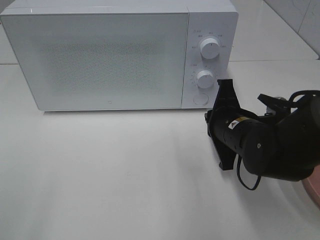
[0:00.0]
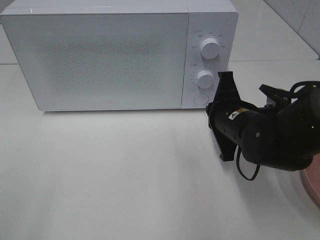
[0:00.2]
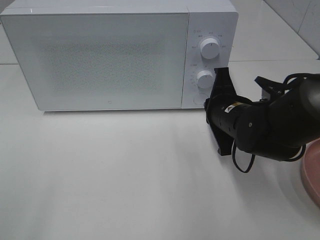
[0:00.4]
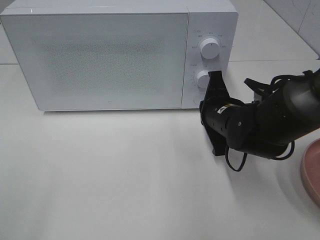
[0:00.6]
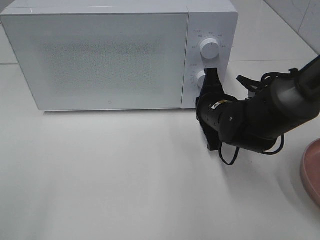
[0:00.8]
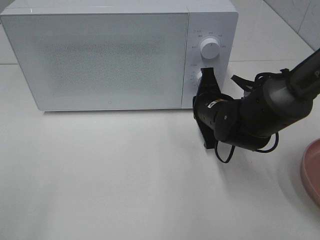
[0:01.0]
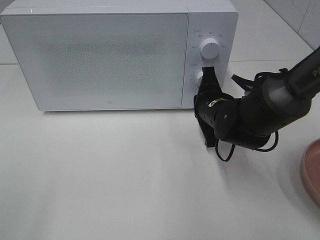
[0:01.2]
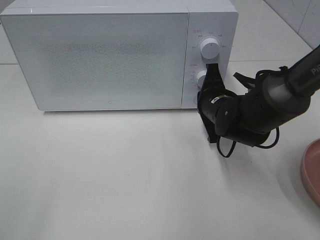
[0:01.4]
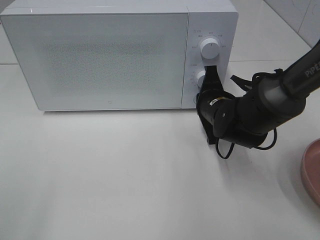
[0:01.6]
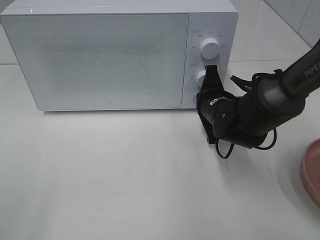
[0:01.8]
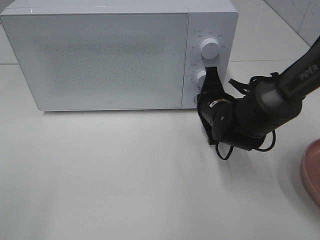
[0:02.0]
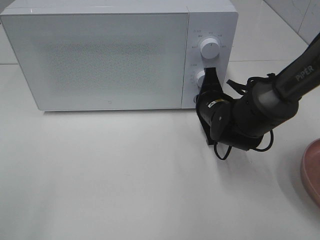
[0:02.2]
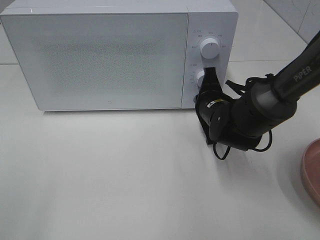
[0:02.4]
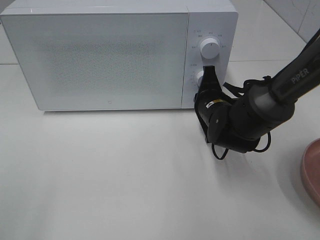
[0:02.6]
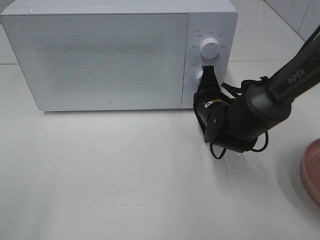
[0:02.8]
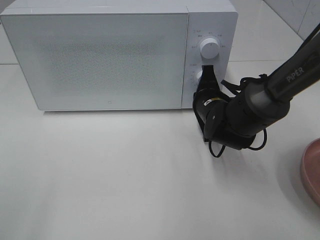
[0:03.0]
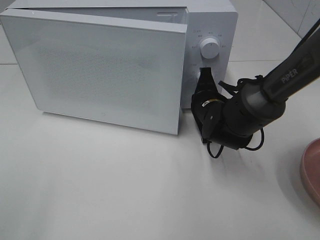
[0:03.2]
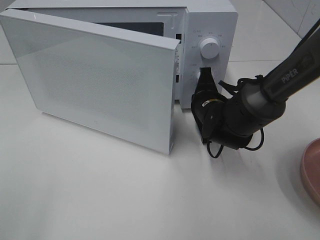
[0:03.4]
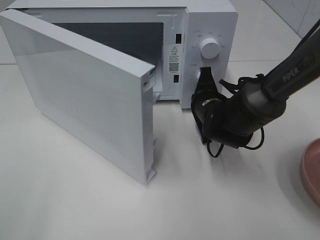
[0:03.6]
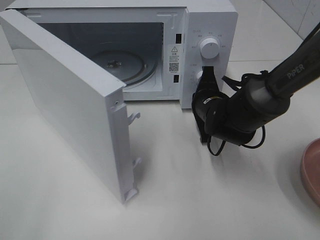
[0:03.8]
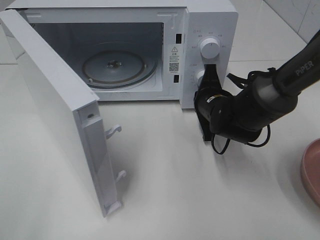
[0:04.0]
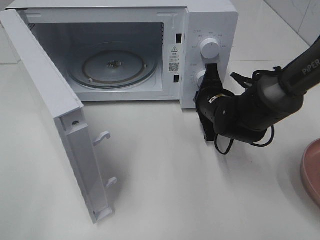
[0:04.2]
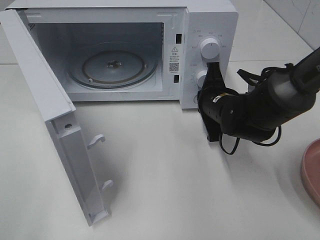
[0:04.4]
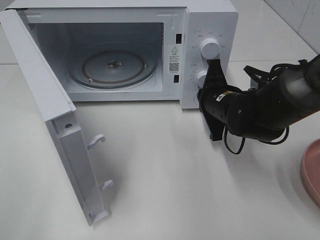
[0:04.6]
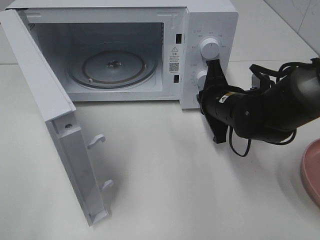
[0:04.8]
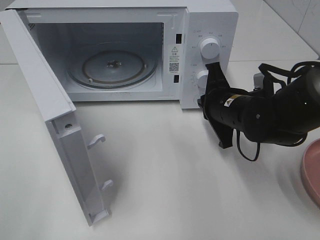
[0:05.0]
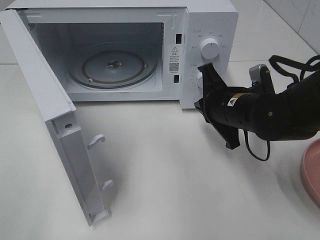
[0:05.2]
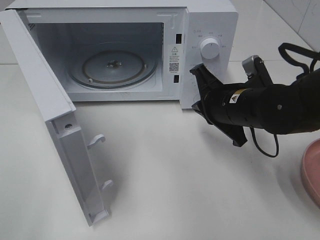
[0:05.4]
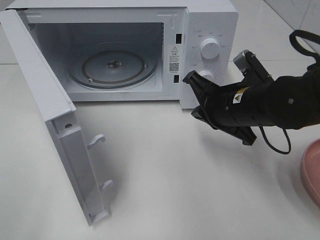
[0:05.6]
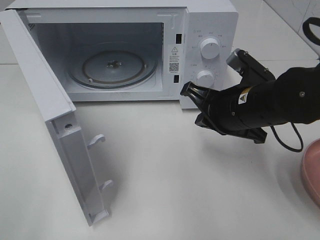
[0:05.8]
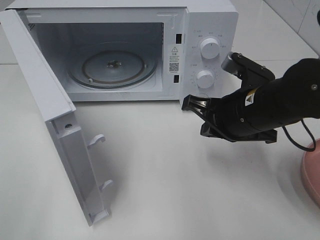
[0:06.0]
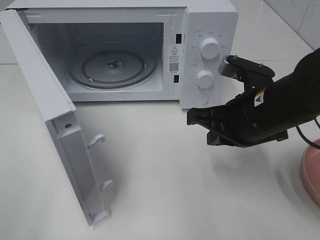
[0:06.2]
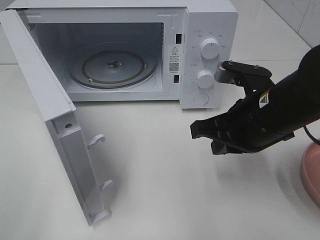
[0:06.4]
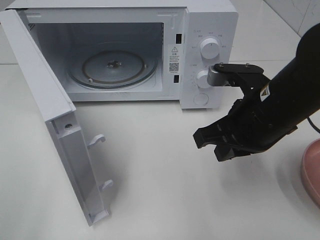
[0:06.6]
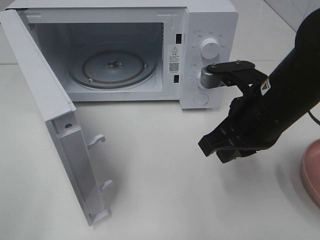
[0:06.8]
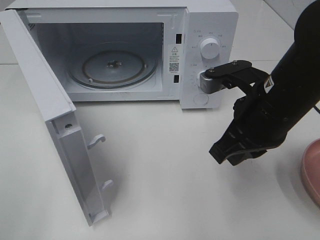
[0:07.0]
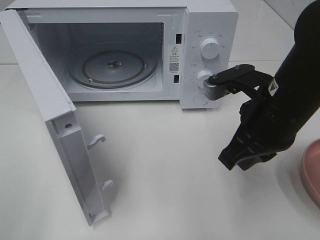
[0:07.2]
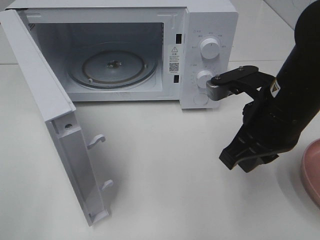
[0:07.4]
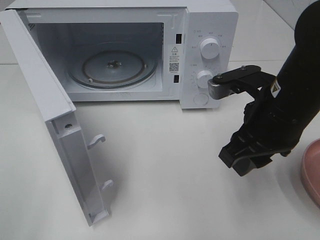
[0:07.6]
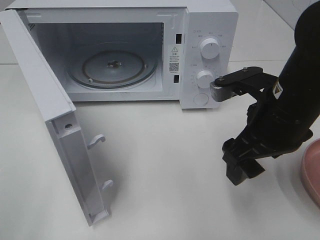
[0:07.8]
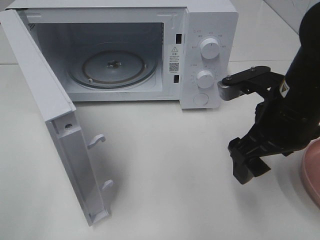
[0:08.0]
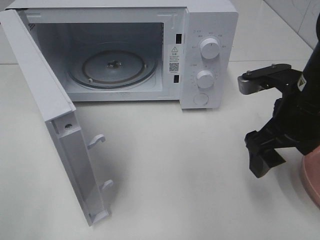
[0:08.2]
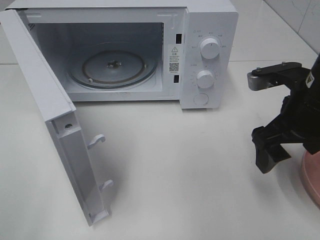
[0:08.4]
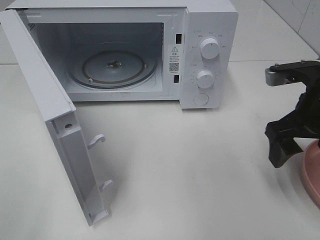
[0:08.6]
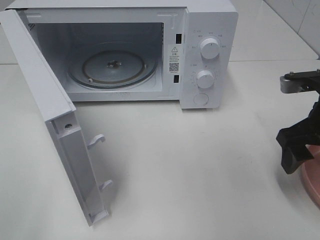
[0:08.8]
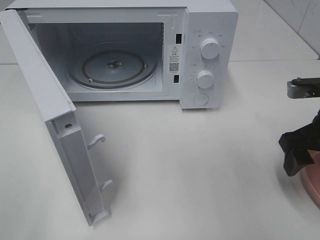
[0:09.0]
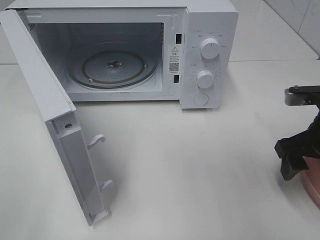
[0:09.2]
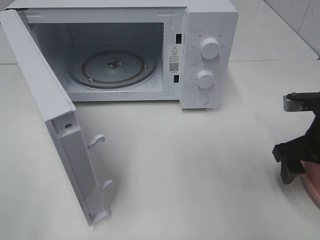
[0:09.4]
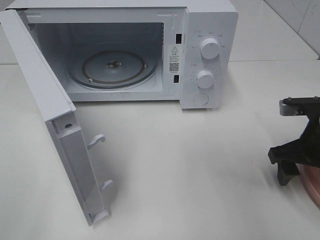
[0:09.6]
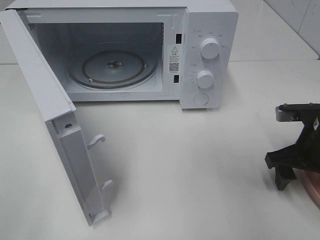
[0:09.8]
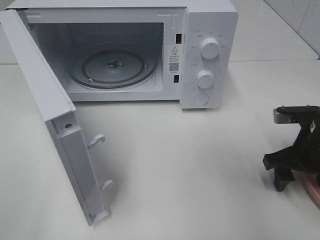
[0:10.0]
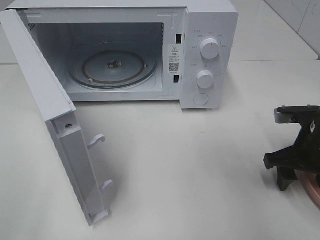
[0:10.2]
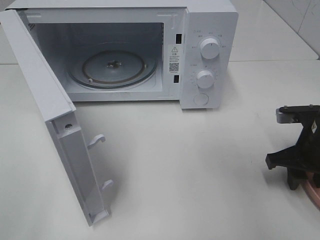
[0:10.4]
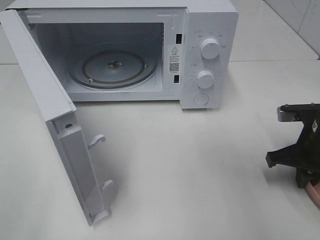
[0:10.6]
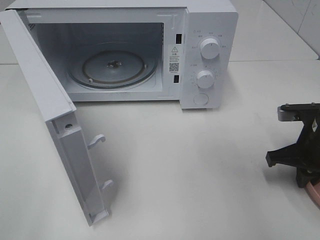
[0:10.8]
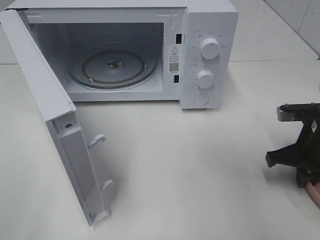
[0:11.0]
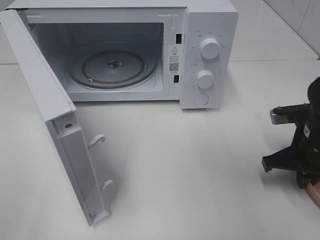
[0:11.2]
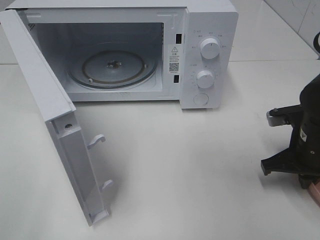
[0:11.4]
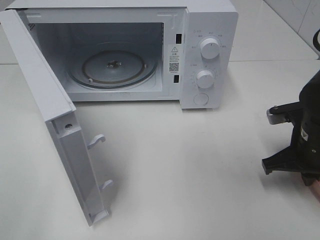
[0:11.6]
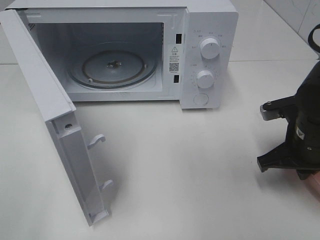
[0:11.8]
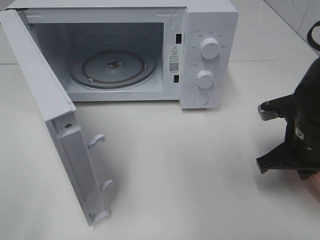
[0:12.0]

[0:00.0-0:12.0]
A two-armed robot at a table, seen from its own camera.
Task of the whole recording: Heat the burger.
Step, 0:00.0 to 0:04.6: Right hand: press the switch.
Step, 0:04.8 to 0:11.6: Right hand: grab the plate with the hamburger.
0:00.0 to 0:01.6: The right gripper goes some 10 cm forward.
0:01.6 to 0:03.0: The grippers stay close to where they were, moving slightly.
0:04.4 to 0:06.0: The right gripper goes roughly 10 cm backward and upward.
0:06.0 to 0:07.6: The right gripper opens up.
0:07.6 to 0:09.0: The right gripper travels to the right by roughly 10 cm, and opens its fingers.
0:09.0 to 0:10.4: The right gripper heads downward, covering about 5 cm, and closes its fingers.
0:10.4 to 0:12.0: The right gripper shifts by about 5 cm, and closes up.

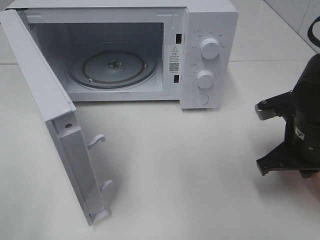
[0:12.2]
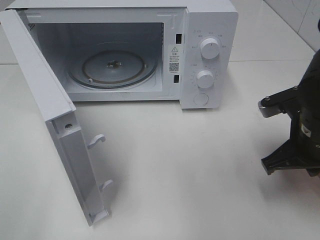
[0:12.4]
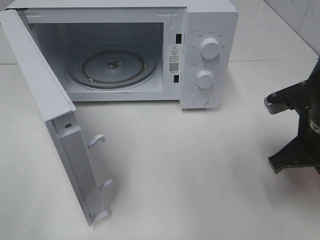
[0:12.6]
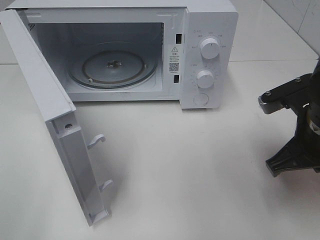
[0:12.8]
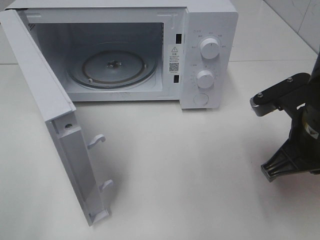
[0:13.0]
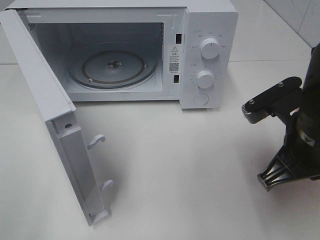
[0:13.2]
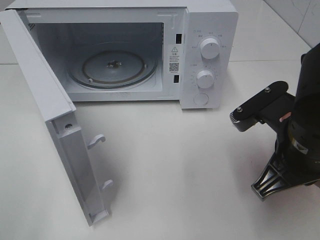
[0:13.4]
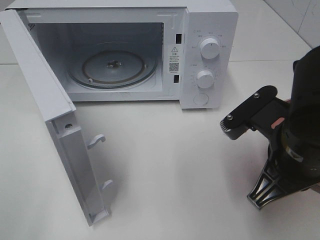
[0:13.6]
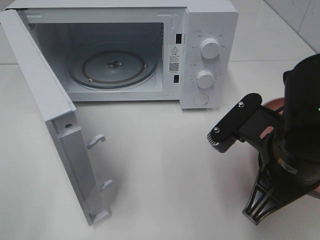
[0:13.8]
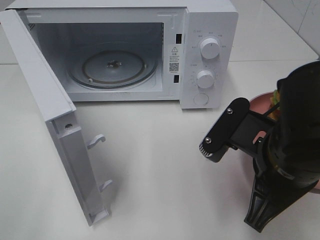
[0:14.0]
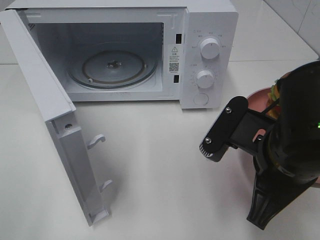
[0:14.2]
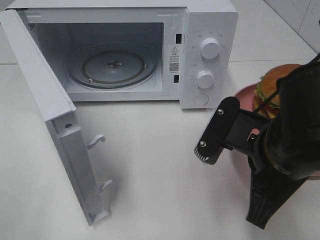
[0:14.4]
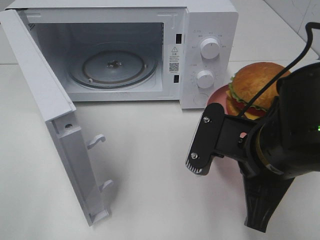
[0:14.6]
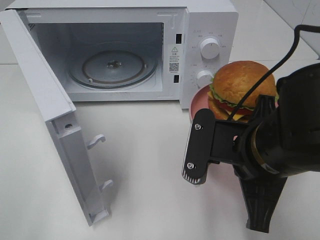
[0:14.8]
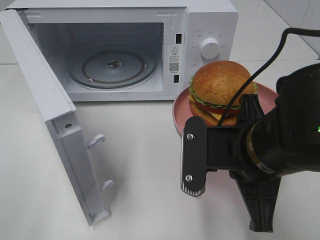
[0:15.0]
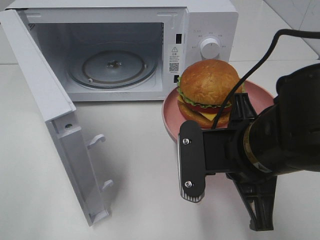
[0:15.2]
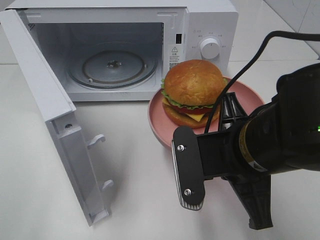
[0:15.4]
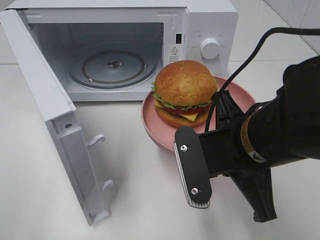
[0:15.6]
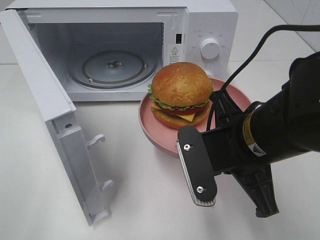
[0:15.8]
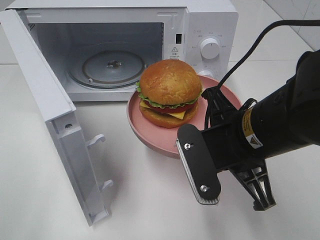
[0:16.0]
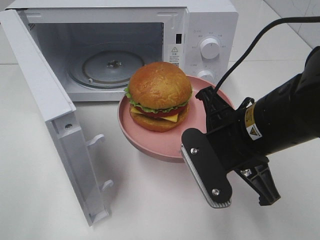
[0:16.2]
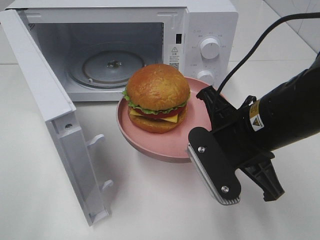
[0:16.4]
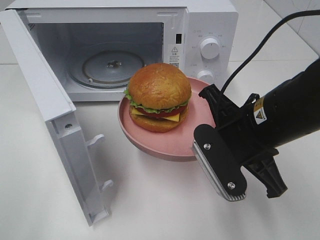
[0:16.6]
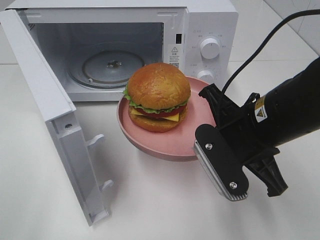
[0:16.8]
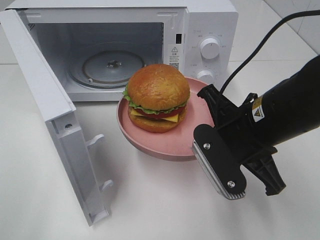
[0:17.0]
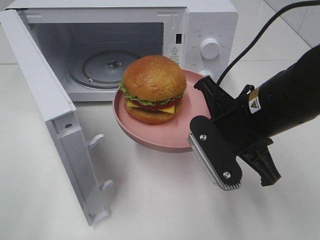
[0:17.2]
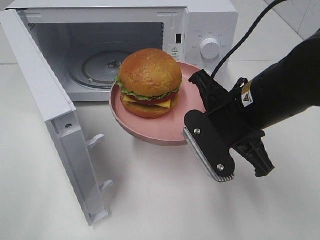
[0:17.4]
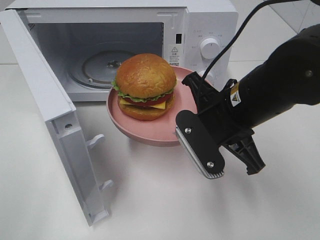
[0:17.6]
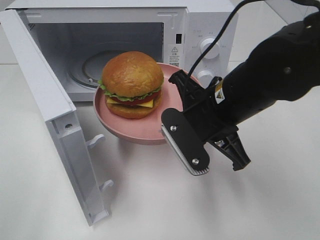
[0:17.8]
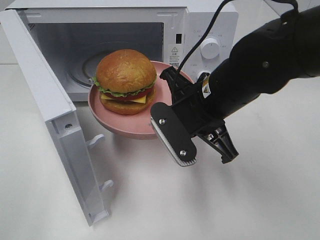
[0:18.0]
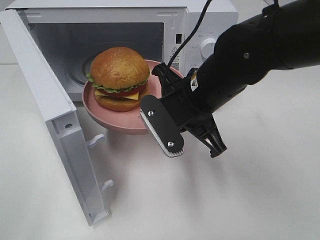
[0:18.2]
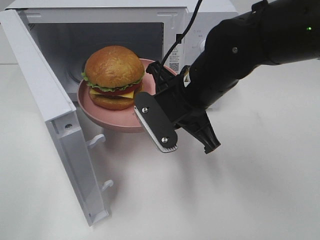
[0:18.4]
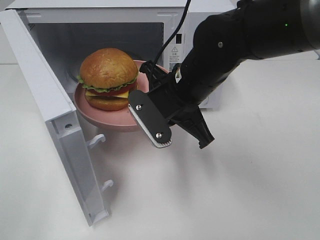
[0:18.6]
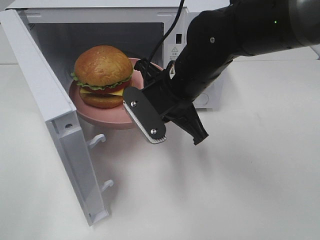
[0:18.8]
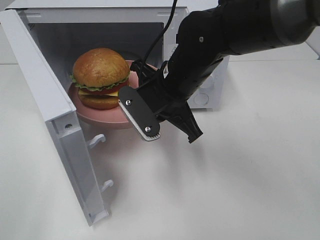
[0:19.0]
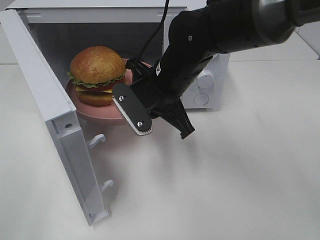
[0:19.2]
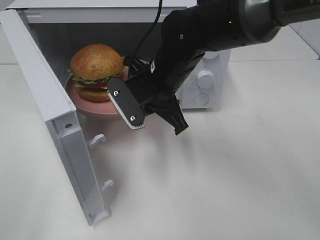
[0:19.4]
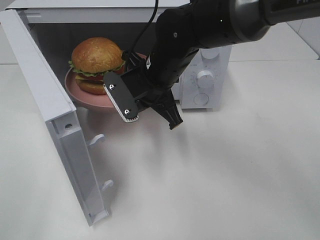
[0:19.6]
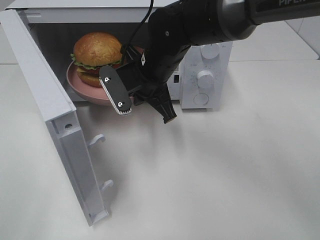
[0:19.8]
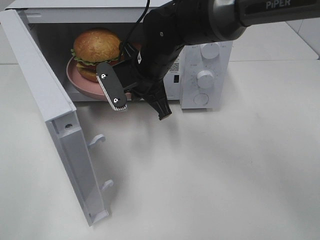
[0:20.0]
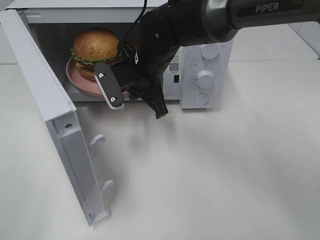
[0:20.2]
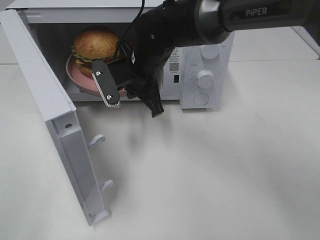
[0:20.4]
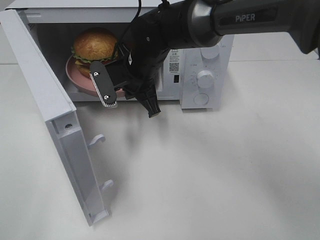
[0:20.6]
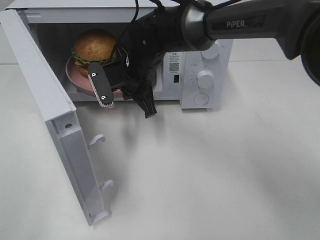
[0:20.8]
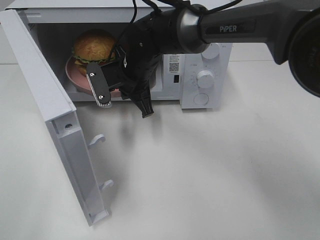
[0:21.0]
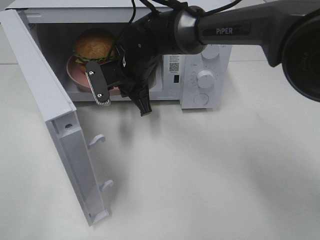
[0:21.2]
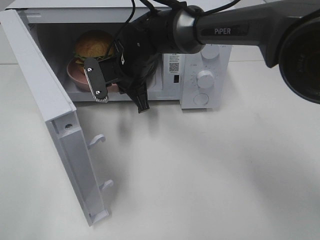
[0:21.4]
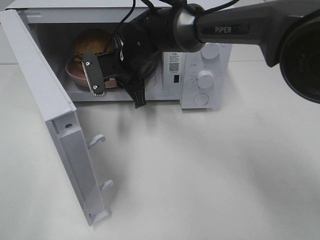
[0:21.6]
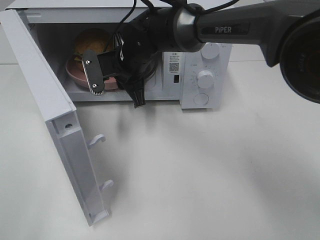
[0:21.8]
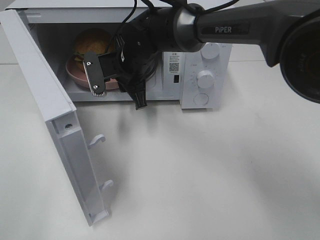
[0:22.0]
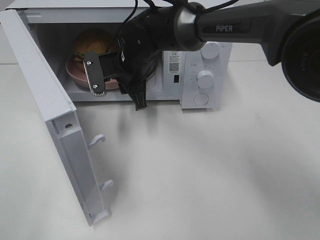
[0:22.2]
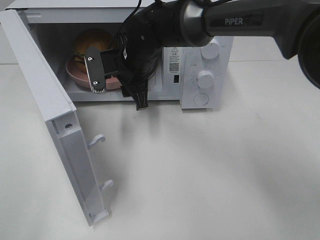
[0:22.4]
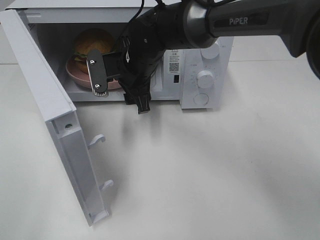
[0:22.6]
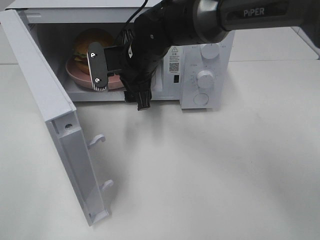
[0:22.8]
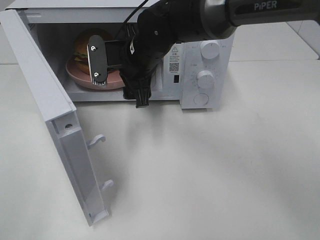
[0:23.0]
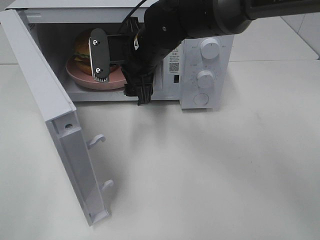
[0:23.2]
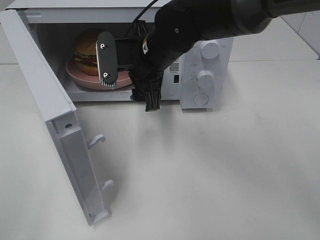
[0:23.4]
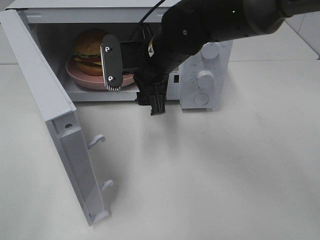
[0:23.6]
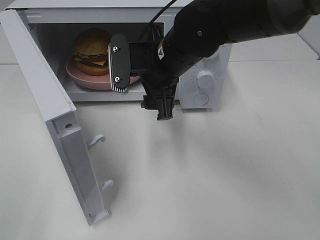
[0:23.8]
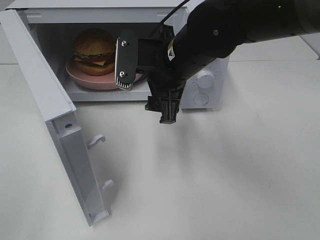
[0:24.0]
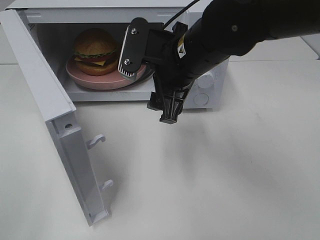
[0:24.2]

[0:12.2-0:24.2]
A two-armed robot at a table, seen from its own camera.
Task of the whole recording: Heat the burger.
Step, 0:12.2 to 0:22.0: Right hand: place the plate in the microwave.
0:12.2 to 0:13.8: The right gripper moves to the left and backward, some 10 cm.
0:16.6 to 0:18.2: The right gripper is displaced to the left and forward by approximately 10 cm.
0:18.2 to 0:19.8: The right gripper moves forward and to the left, roughly 10 cm.
0:19.8 to 0:21.2: The right gripper changes place by roughly 5 cm.
0:21.2 to 0:22.6: The right gripper opens.
0:22.6 to 0:24.2: The right gripper goes some 15 cm backward, to the right and upward.
